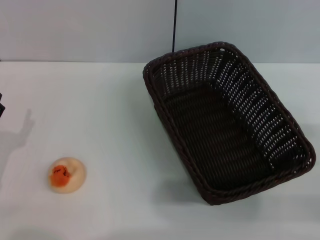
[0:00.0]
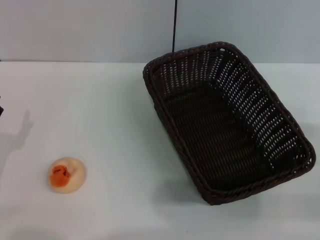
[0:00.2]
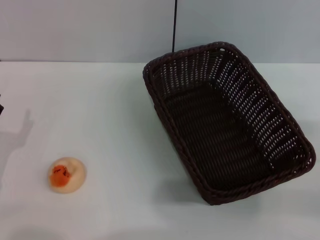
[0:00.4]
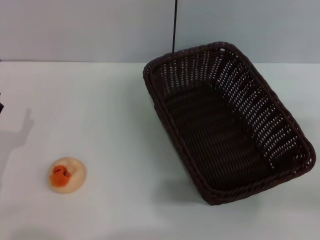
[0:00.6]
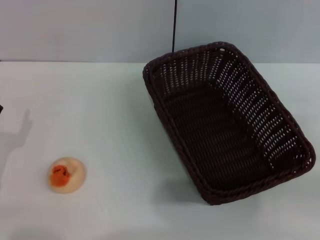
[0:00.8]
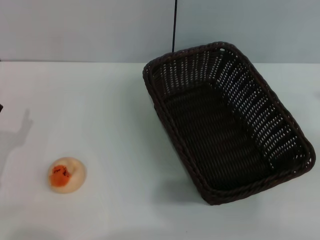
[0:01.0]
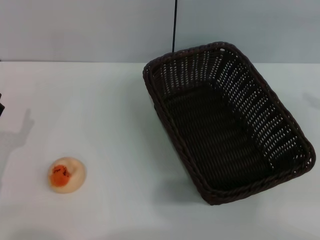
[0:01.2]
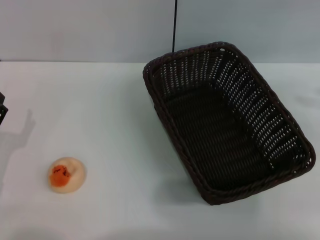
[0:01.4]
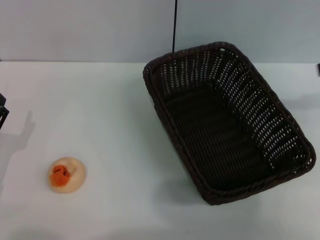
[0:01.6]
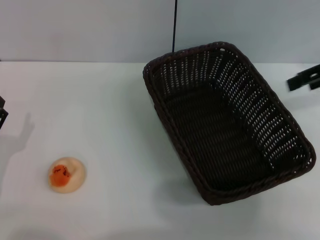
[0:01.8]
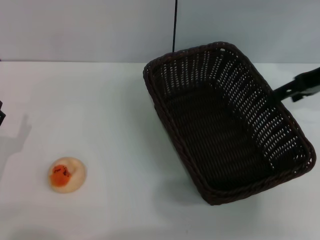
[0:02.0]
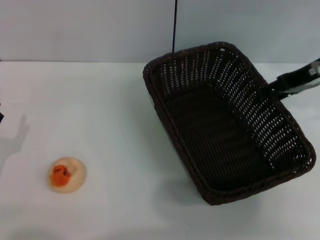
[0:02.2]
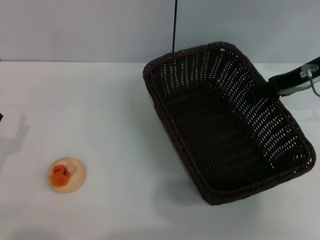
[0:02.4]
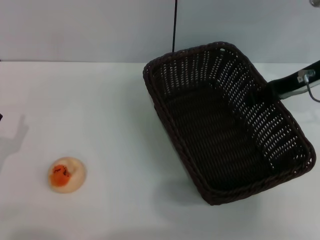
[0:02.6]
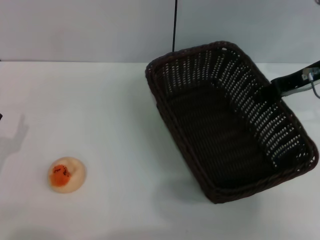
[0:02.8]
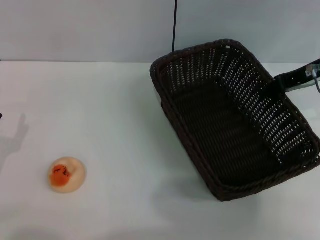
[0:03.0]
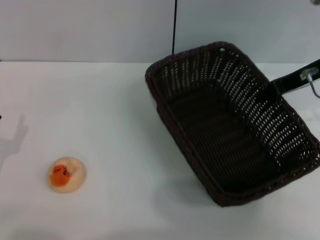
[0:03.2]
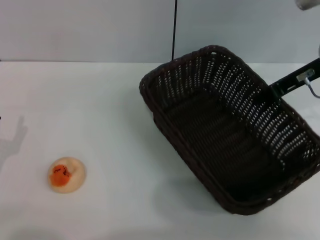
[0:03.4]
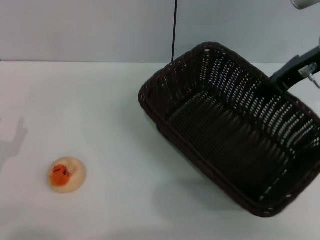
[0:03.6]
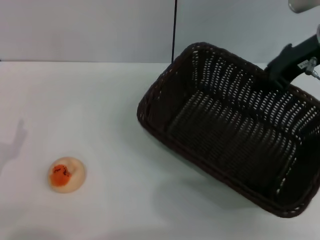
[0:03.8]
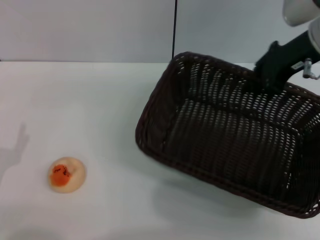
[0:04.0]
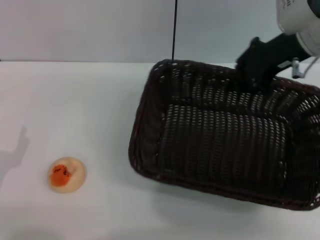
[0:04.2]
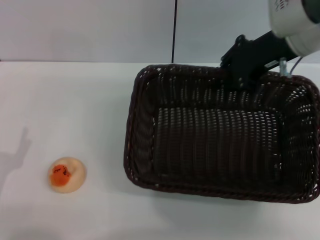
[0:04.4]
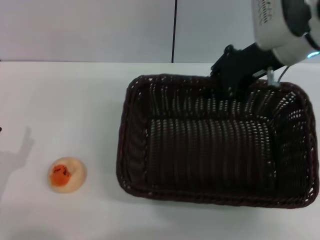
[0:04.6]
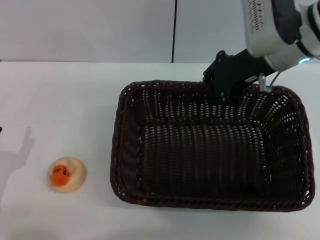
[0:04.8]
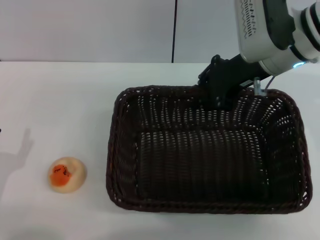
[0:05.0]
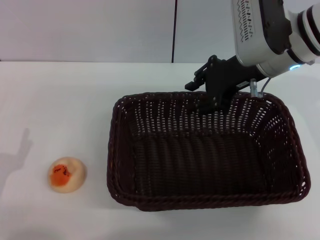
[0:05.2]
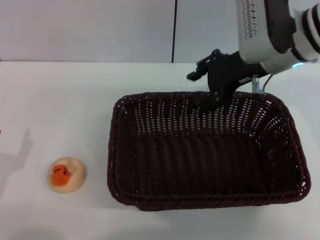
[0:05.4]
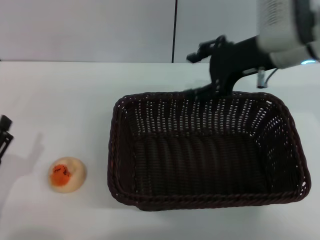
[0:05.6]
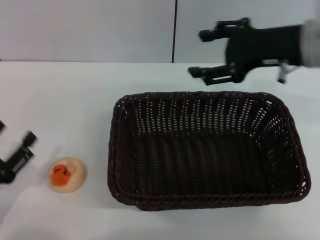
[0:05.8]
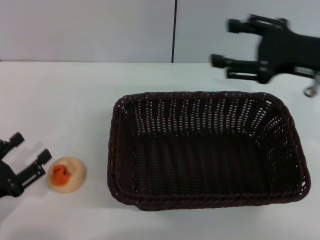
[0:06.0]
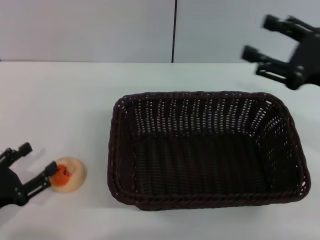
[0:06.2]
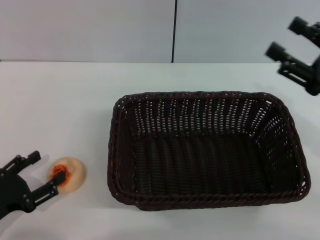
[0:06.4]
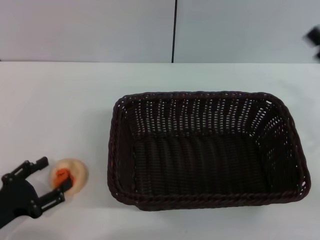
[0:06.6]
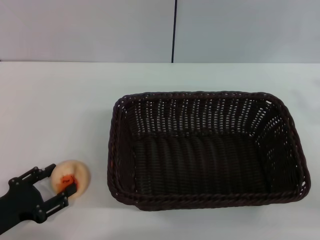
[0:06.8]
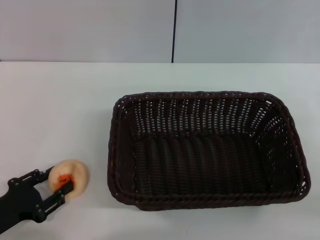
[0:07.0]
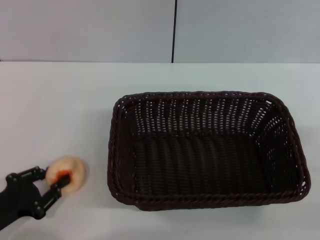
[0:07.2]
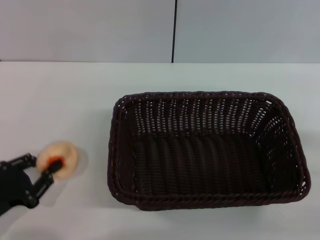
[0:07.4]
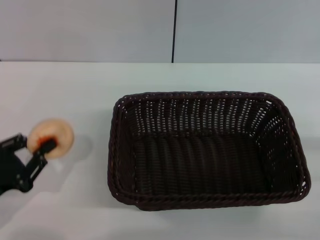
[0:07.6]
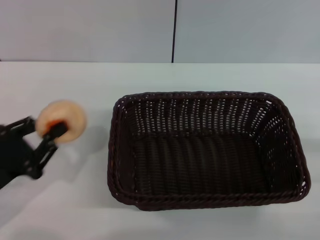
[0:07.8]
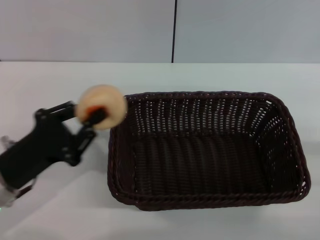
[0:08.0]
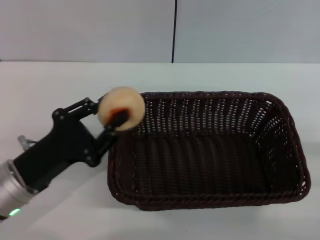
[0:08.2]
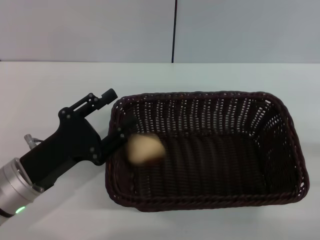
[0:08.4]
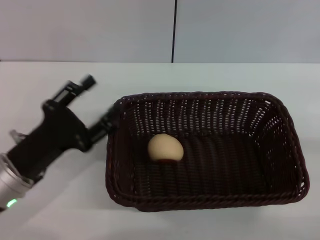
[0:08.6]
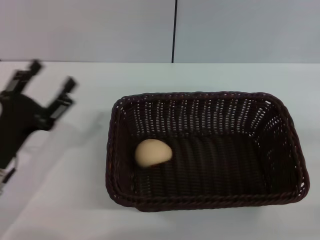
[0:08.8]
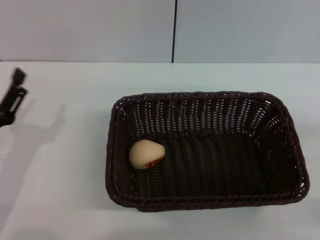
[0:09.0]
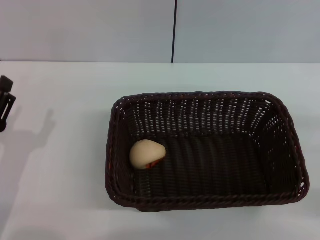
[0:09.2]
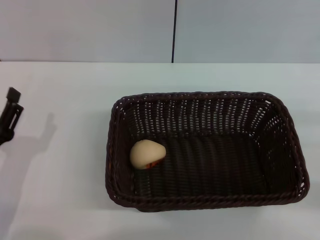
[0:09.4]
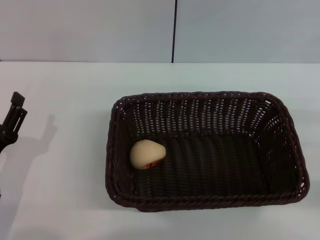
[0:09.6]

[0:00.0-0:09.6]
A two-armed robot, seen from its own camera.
Step, 0:00.0 to 0:05.6: Move the basket to the center of view with the right gripper.
Step, 0:07.6 to 0:08.4: Place the egg yolk pastry into the basket with the left gripper.
0:00.0 to 0:01.6: The right gripper goes about 25 cm upward and forward.
0:01.6 to 0:03.2: The right gripper goes approximately 15 cm to the left and downward, and closes its fingers.
0:03.2 to 0:04.8: The right gripper is displaced to the left by about 10 cm.
0:04.8 to 0:06.4: The right gripper heads backward, to the right and downward, covering some 20 cm, and opens.
0:06.4 to 0:08.0: The left gripper heads to the right and forward, covering approximately 10 cm, and closes. The right gripper is displaced backward, downward and to the right by about 15 cm.
0:08.0 to 0:09.6: The right gripper moves forward, approximately 5 cm. Meanwhile the left gripper moves some 5 cm, and opens.
